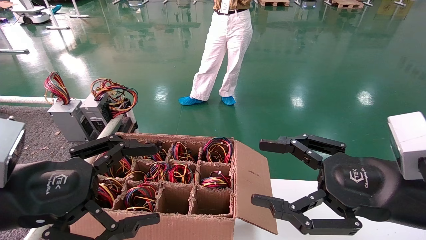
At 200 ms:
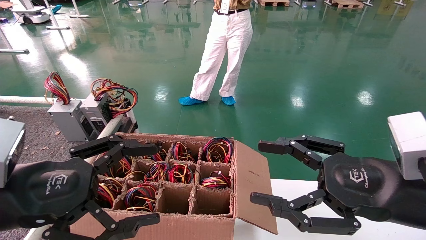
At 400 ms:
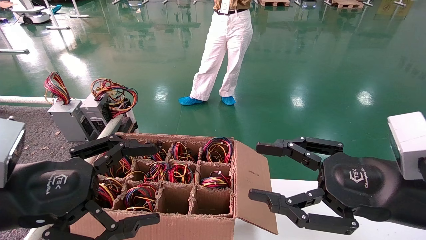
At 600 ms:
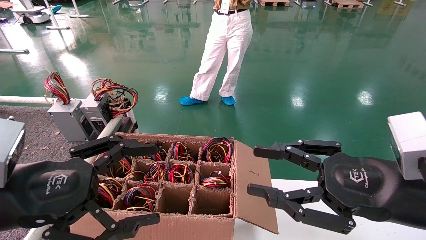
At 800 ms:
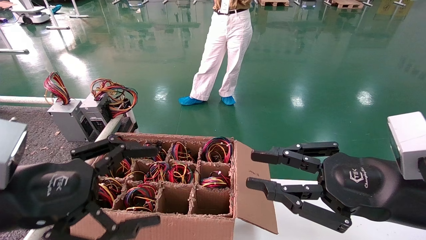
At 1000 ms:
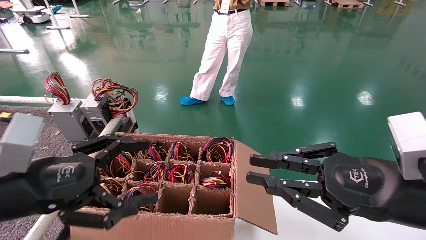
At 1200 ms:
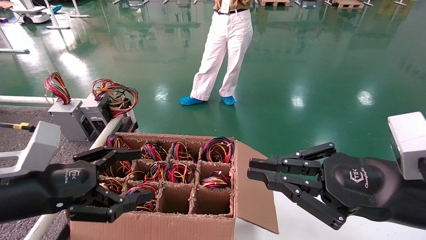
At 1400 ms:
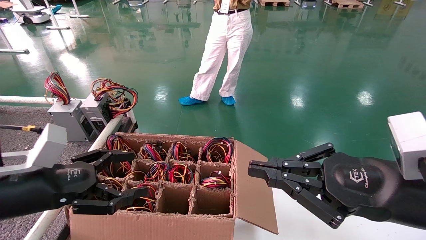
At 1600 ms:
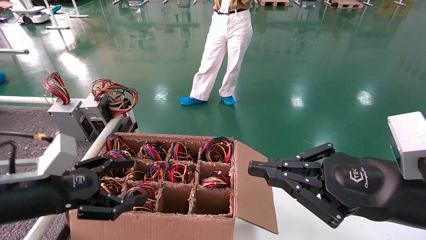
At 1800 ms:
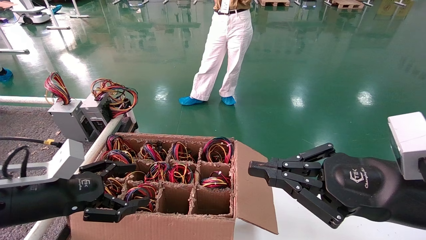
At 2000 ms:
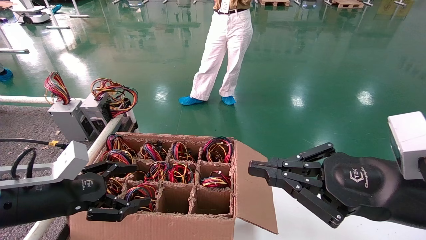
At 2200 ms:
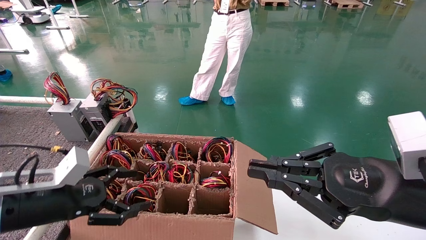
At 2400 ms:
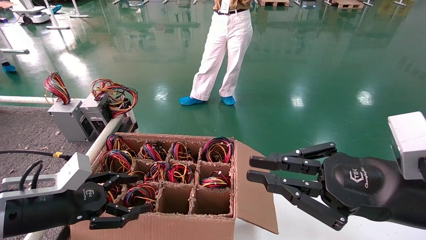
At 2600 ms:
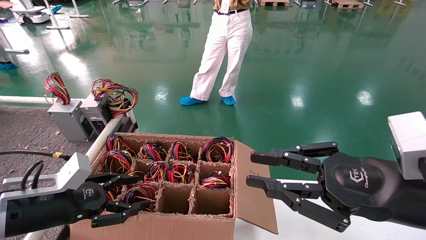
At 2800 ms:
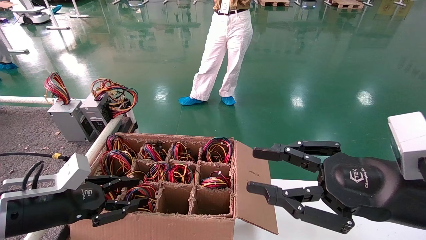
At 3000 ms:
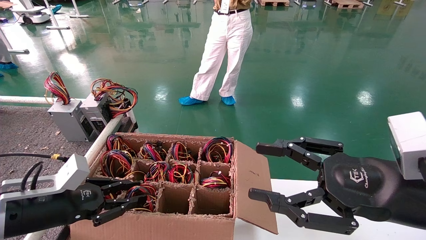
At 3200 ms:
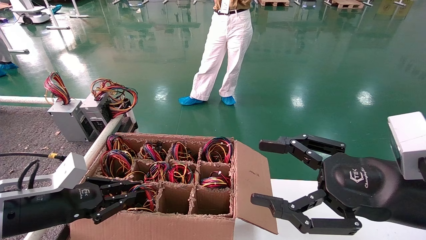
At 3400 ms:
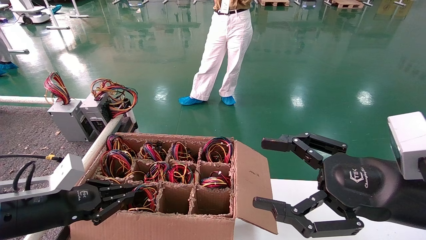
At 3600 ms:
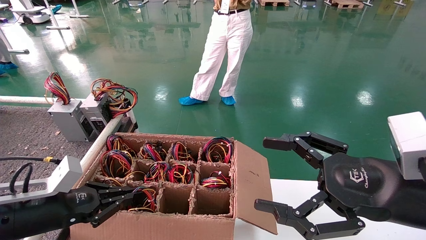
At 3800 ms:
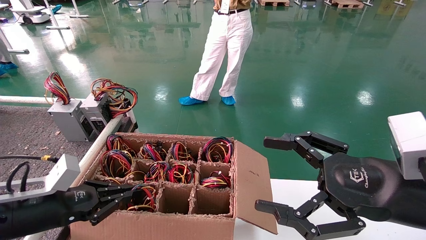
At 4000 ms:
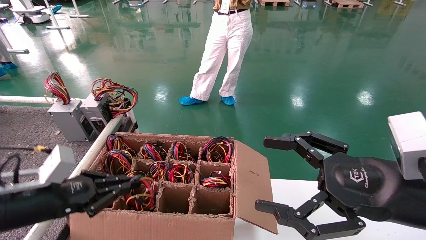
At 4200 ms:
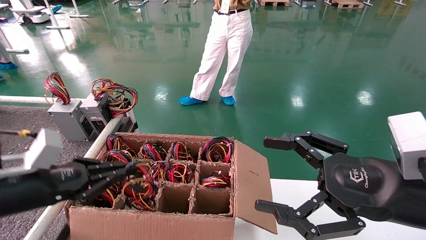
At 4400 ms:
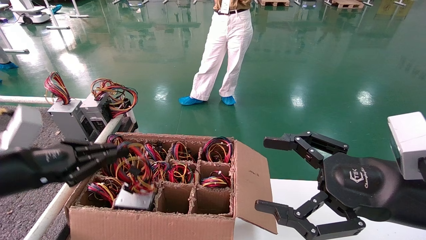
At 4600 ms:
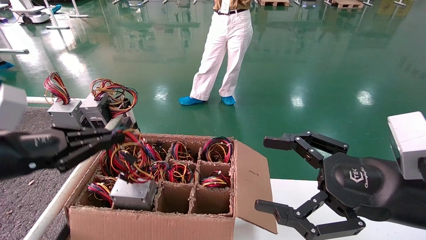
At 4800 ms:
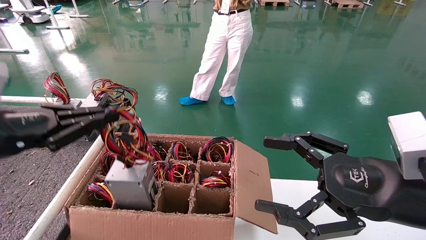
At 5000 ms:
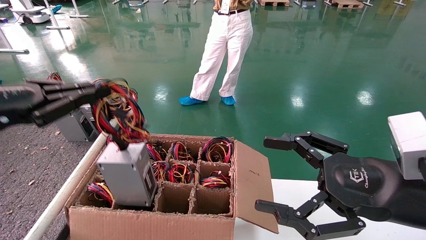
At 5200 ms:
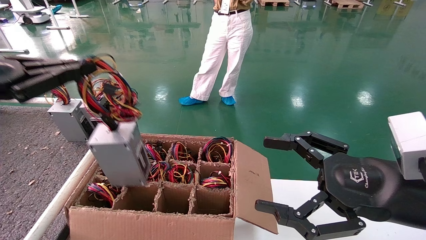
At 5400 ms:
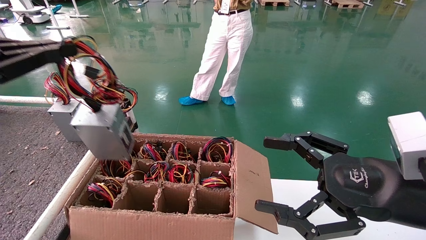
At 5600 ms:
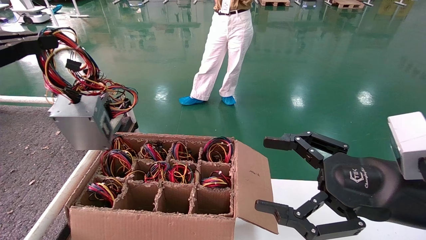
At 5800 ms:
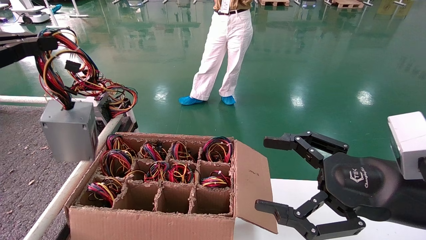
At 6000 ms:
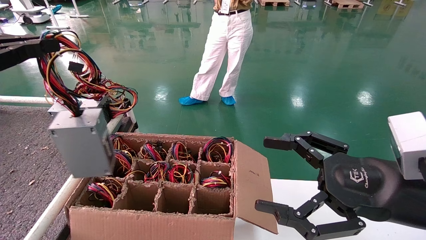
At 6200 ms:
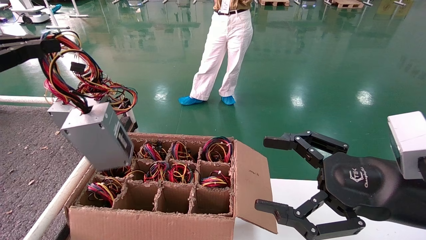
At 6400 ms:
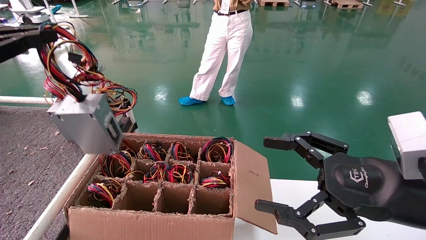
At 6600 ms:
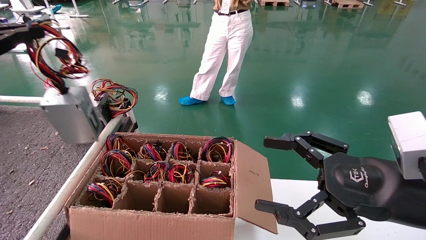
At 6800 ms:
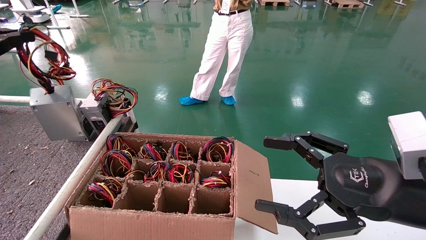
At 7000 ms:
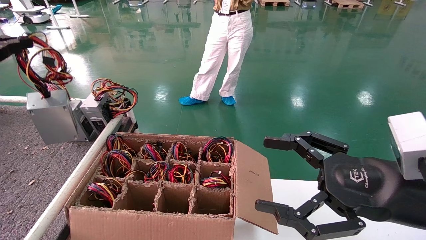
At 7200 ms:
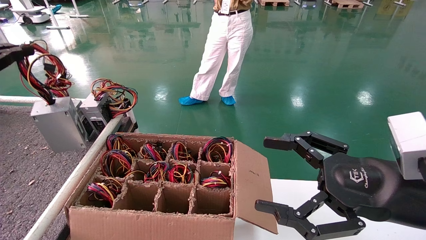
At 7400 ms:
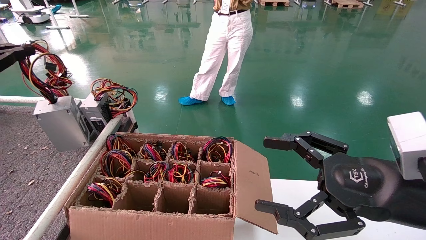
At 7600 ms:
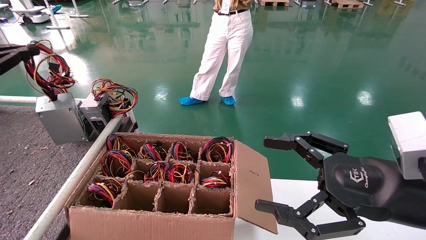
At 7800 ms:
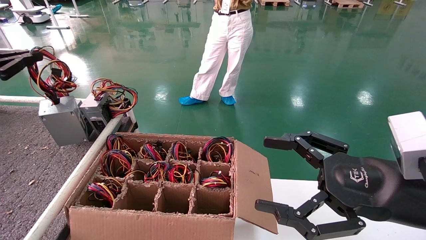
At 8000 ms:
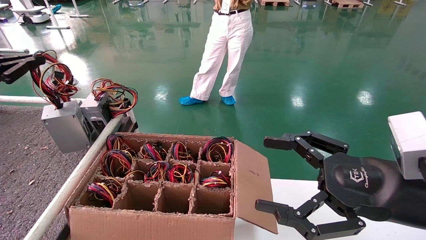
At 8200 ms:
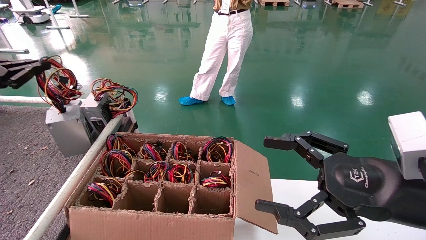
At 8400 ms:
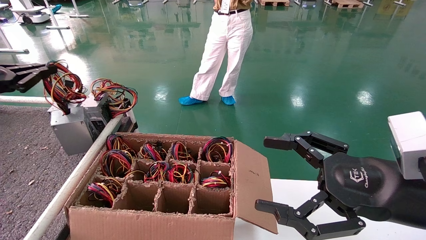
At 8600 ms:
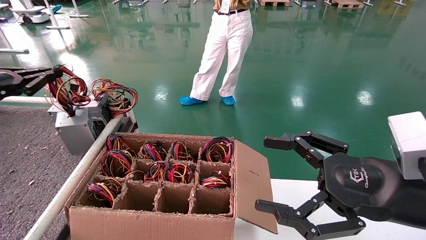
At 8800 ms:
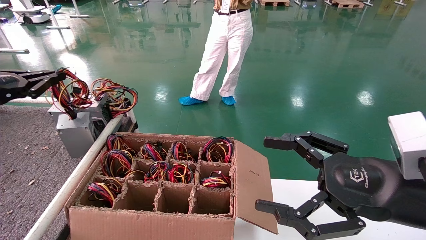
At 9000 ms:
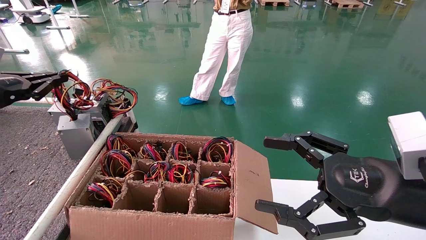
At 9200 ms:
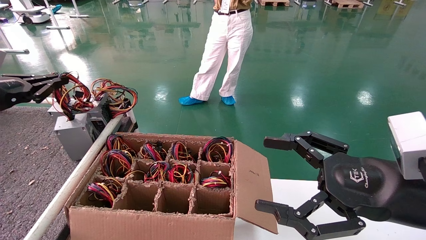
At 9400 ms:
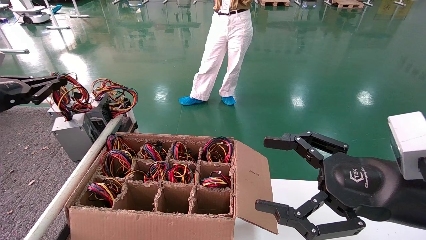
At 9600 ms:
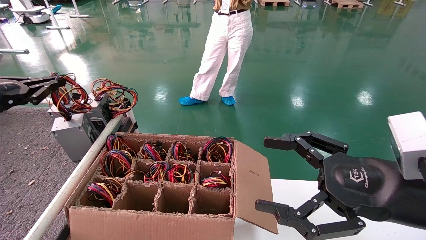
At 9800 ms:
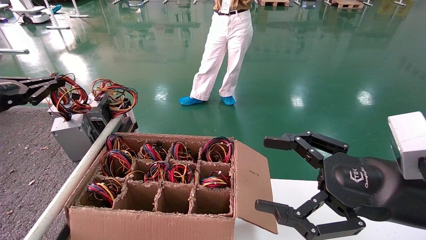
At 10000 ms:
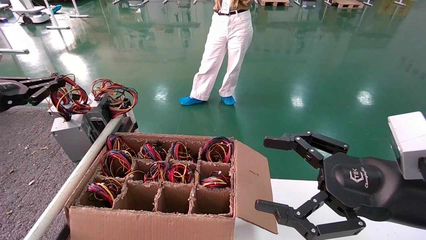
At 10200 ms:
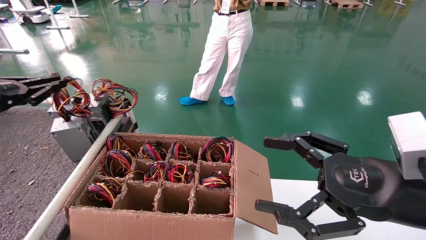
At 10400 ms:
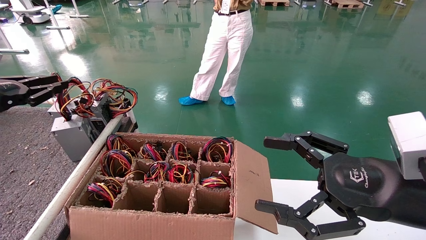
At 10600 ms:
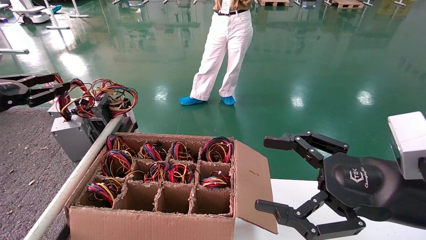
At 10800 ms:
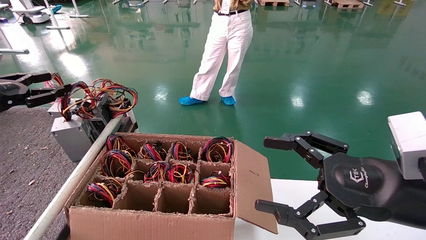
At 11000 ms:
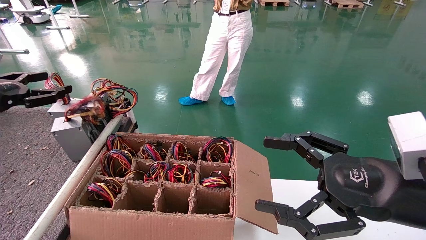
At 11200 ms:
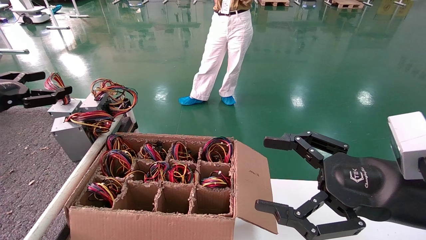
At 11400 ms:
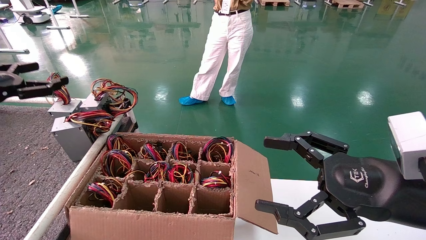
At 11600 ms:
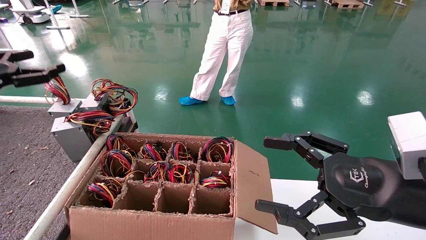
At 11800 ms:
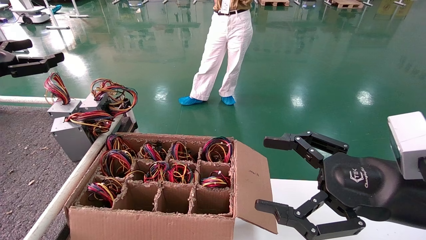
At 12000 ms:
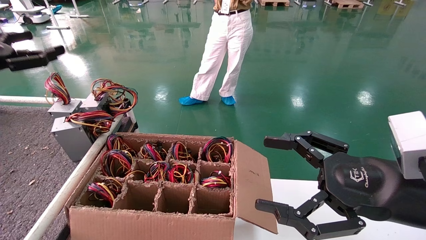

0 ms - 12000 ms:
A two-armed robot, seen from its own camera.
Step, 800 ms - 3600 ms: Grab and lift the power supply from the large box.
Step, 3800 ms - 10600 ms: Place the power supply on the operating table.
0 ms - 1600 ms: The right gripper closes. Meanwhile the left gripper is displaced forward and downward by about 10 cm.
1600 ms - 3000 ms: The left gripper moves approximately 5 cm, and closes its fingers. Meanwhile the right gripper opens up.
3000 ms - 4400 ms: The left gripper travels upward by roughly 10 cm, and closes; the right gripper opens.
4400 ms - 6000 ms: The left gripper heads upward and to the left, covering some 15 cm.
6000 ms - 7600 ms: The left gripper shifts roughly 15 cm forward and to the left.
7600 ms - 9000 ms: The left gripper moves roughly 5 cm.
9000 ms - 10400 ms: Both grippers stay put.
10400 ms - 12000 ms: The left gripper opens up.

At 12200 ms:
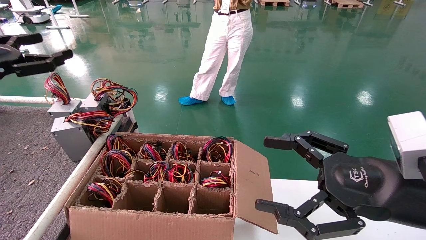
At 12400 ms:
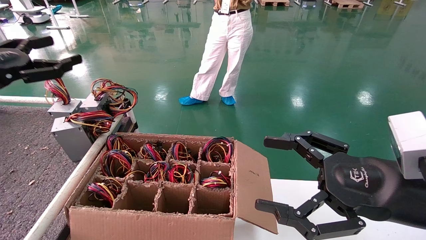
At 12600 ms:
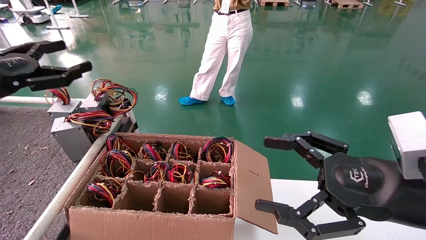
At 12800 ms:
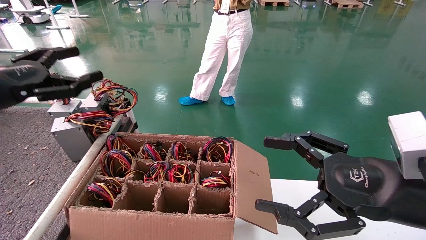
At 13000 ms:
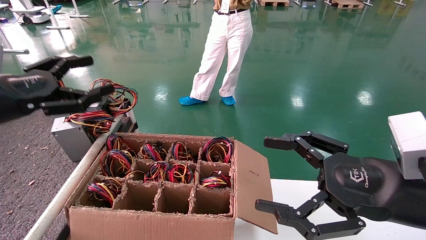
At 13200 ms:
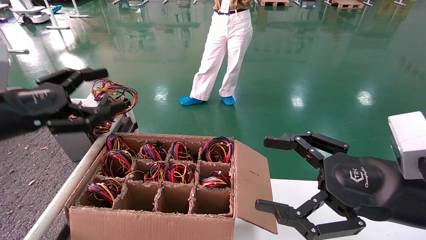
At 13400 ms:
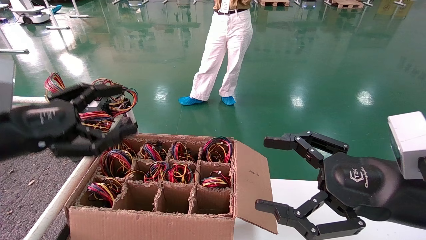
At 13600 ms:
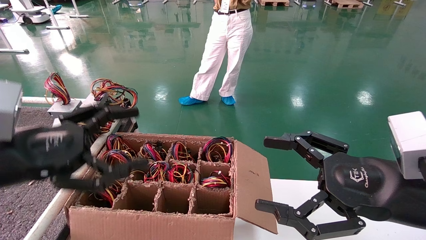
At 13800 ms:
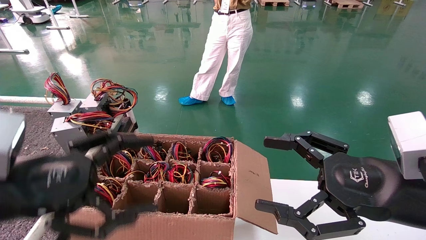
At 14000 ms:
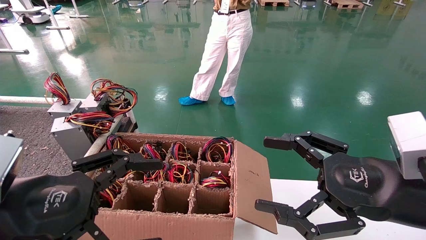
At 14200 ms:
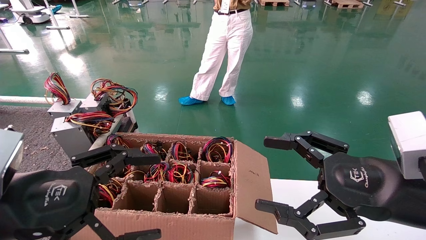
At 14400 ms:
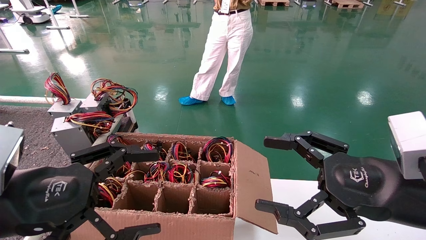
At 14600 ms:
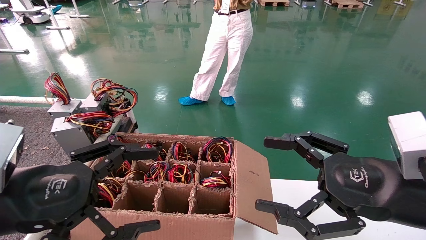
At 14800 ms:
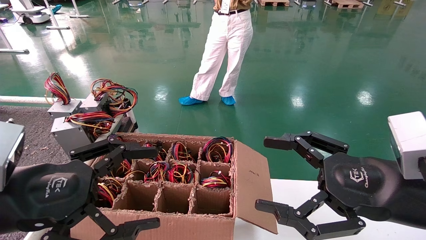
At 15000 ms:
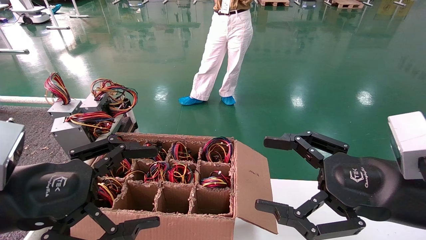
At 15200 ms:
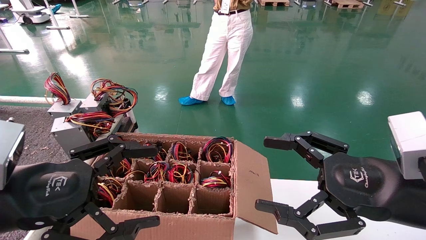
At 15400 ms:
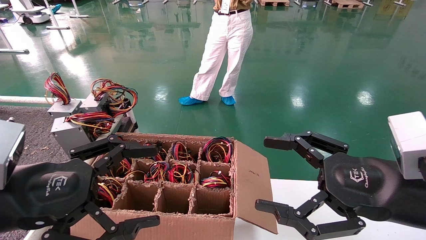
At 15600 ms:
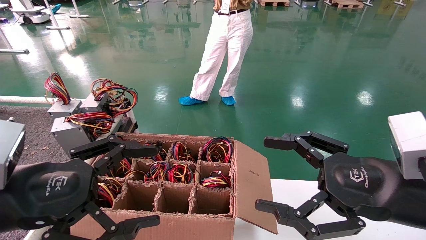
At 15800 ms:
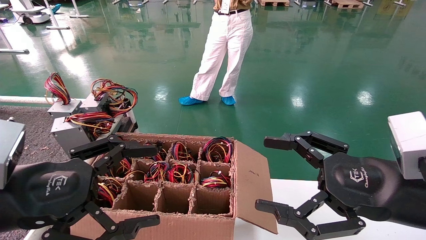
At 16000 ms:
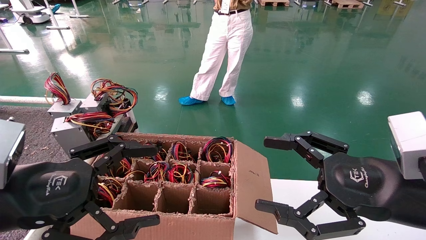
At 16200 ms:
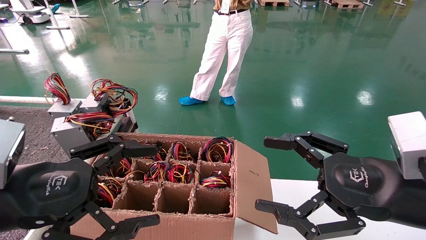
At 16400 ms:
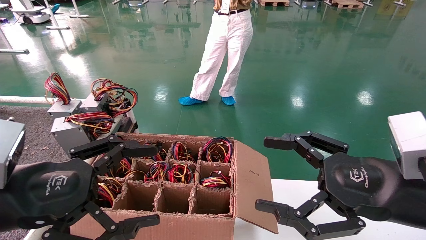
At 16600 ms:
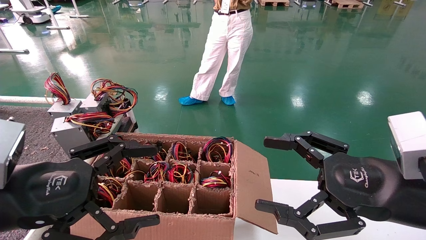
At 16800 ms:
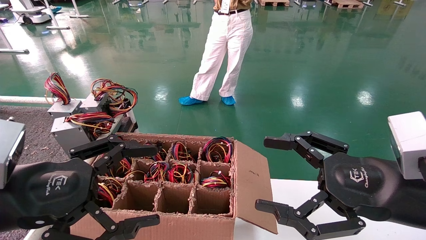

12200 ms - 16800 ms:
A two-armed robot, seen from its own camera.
12200 ms - 13800 ms: The left gripper travels to the right, backward and downward by about 25 cm.
13800 ms - 15200 ms: The grippers stay close to where they were, moving slightly.
15200 ms - 16800 ms: Both grippers stay about where they are.
